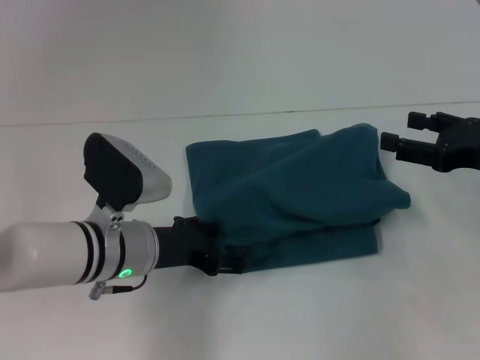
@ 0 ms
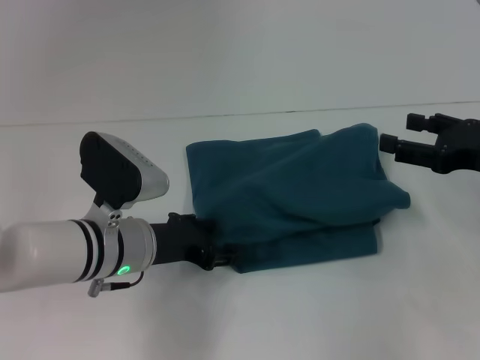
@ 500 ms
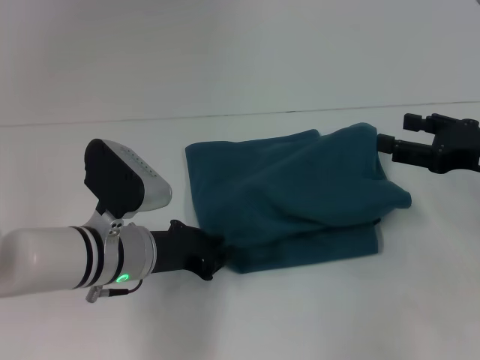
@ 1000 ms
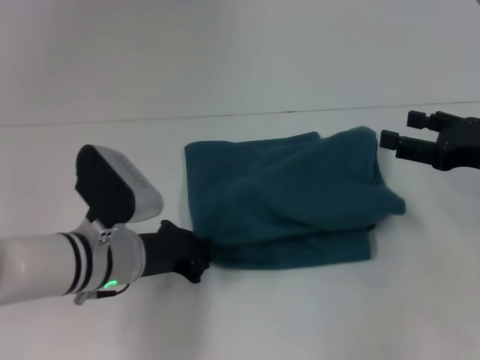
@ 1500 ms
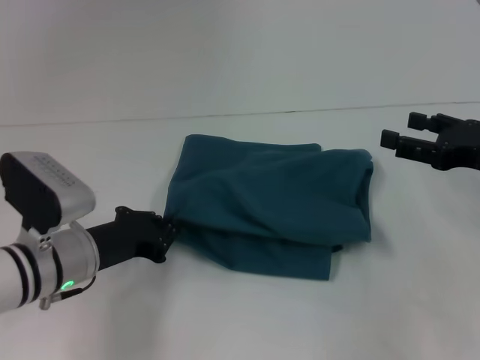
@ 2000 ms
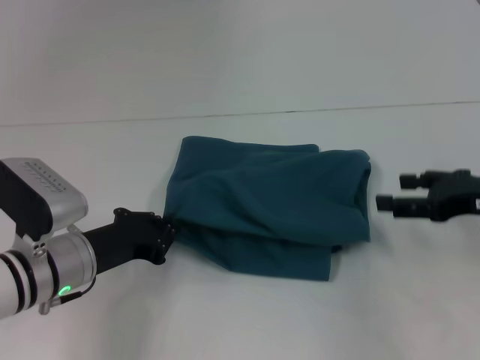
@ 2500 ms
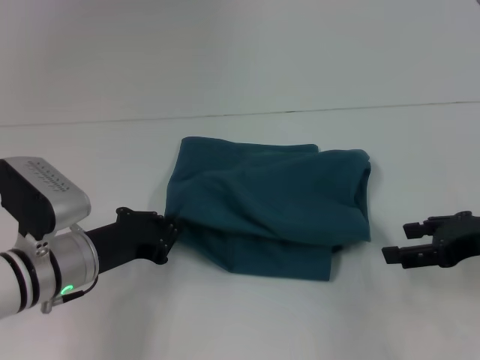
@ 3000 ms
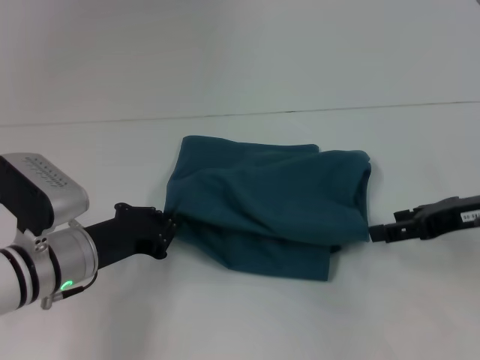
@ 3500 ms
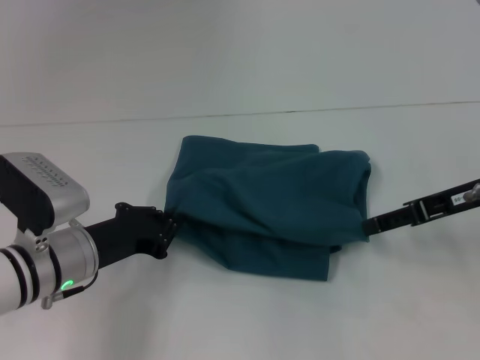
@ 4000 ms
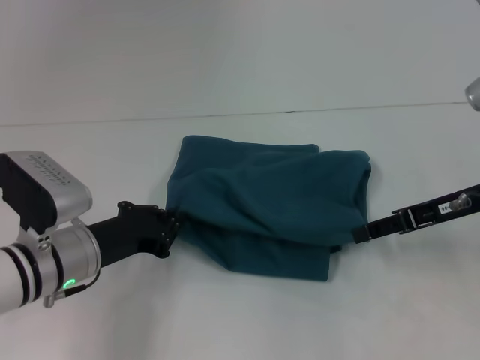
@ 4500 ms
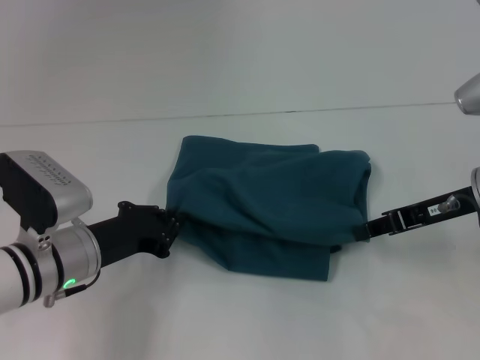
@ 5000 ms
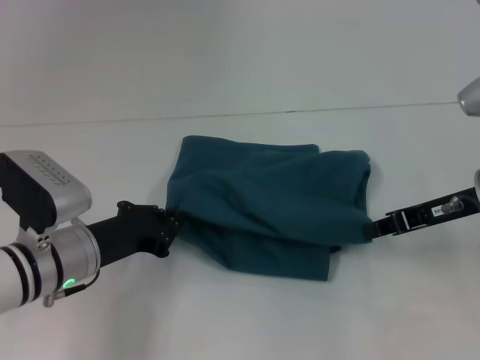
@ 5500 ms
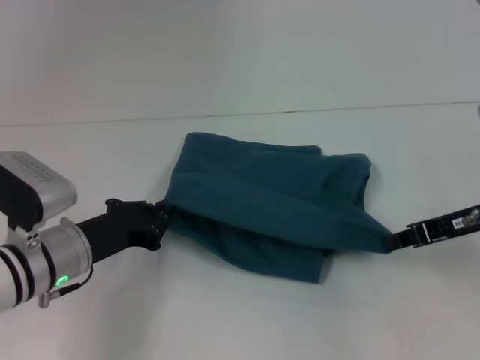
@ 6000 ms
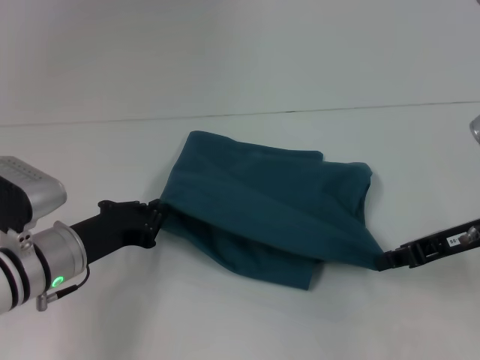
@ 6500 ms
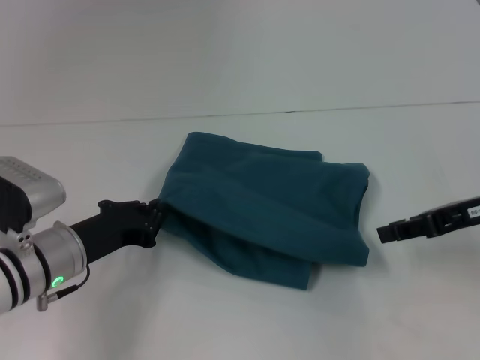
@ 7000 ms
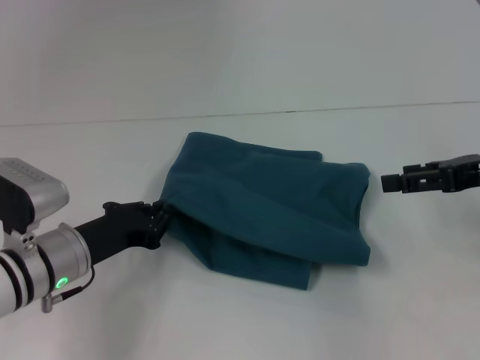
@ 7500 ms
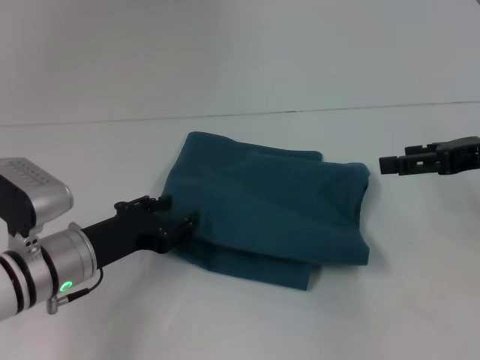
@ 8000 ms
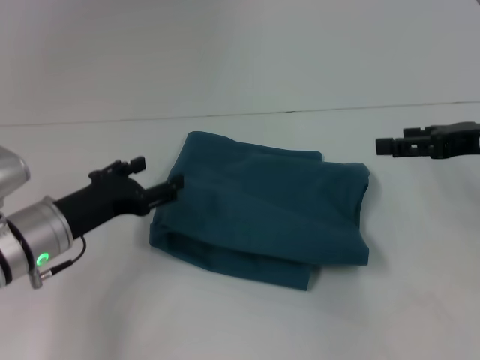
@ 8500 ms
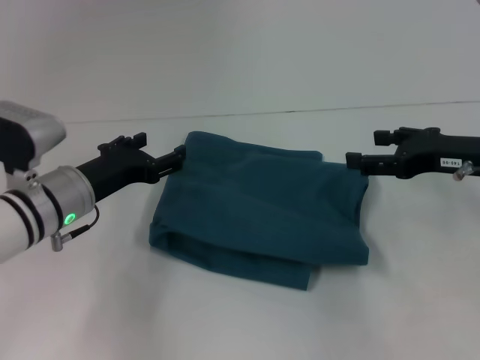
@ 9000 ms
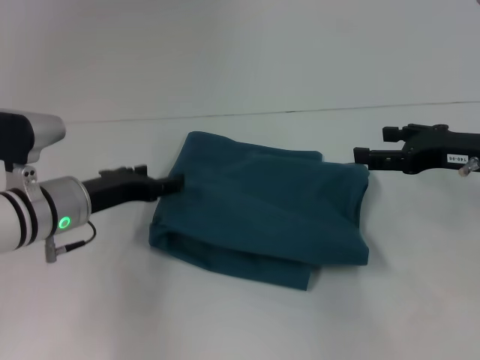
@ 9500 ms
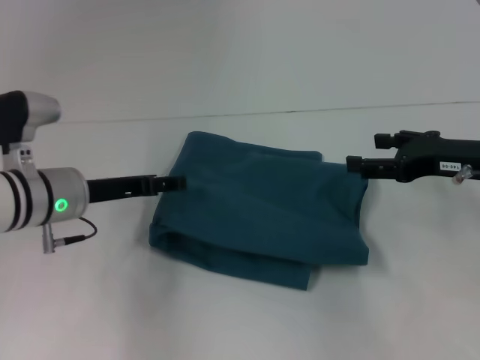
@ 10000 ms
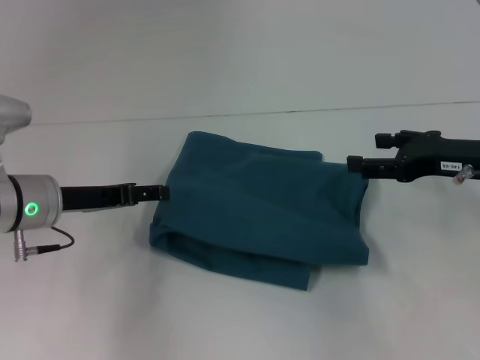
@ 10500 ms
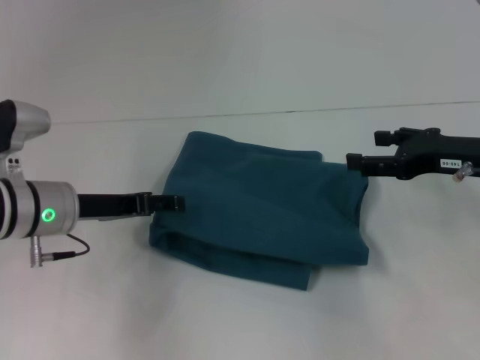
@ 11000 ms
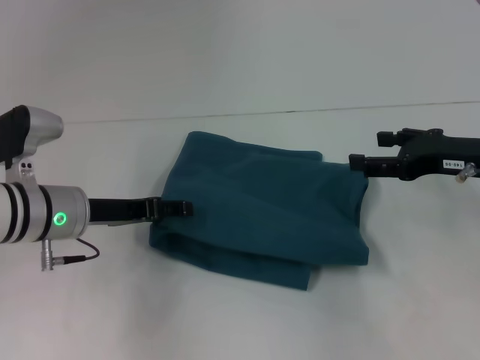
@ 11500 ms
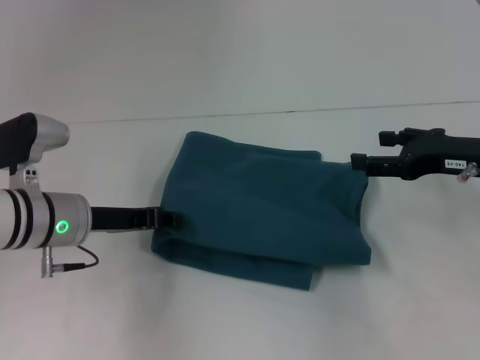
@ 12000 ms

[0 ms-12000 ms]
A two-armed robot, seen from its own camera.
0 ms to 2000 ms: The left gripper travels to the left by about 5 cm, and closes.
4000 ms to 6000 ms: The right gripper closes up.
6000 ms to 8000 ms: The right gripper ends up roughly 5 cm from where it was, and opens its fingers.
8000 ms to 10000 ms: The left gripper travels forward by about 5 cm, and opens, while the right gripper changes place by roughly 5 cm.
10000 ms to 12000 ms: The left gripper closes.

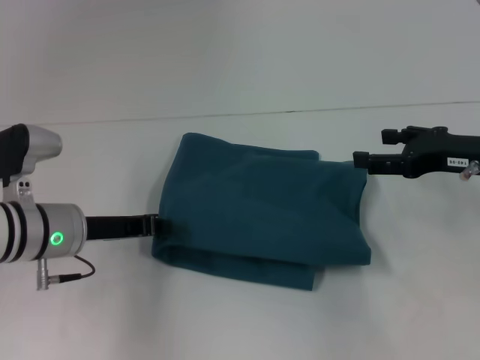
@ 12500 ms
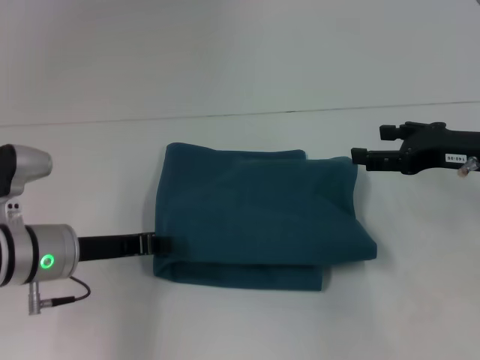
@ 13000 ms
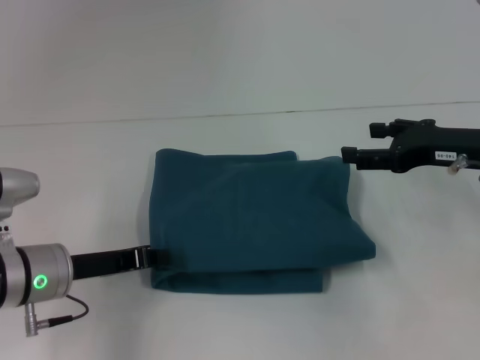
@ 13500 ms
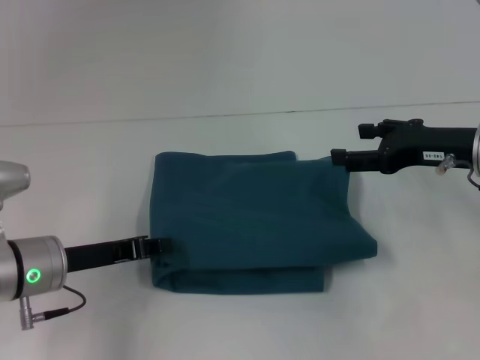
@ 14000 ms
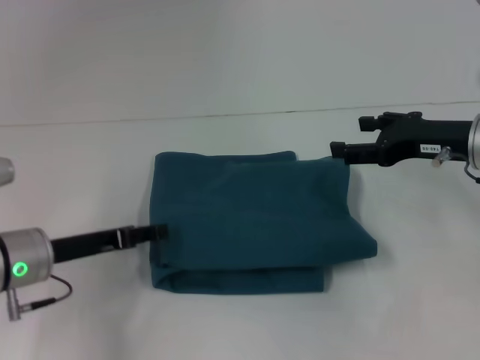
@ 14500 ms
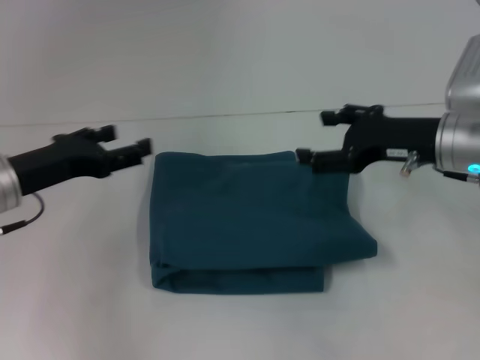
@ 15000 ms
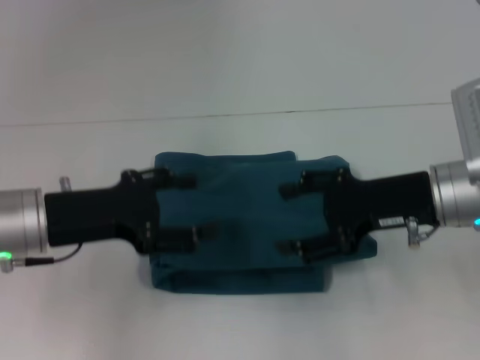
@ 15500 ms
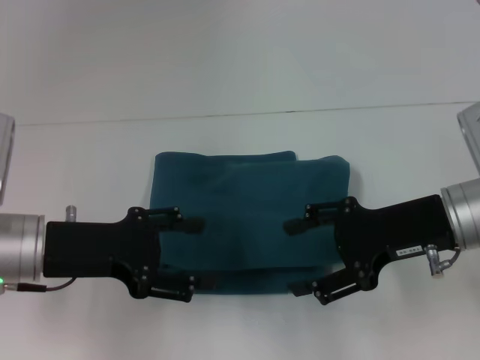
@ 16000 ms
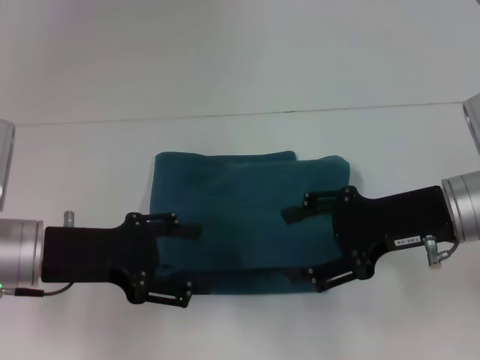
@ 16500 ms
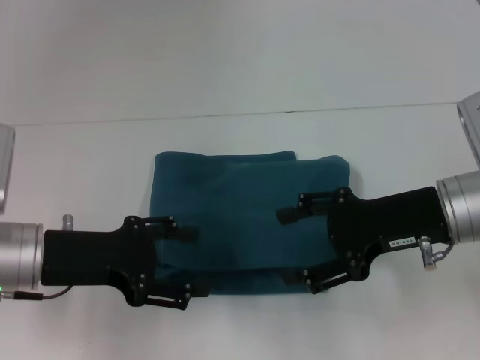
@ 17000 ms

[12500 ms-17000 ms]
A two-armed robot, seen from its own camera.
12500 ms to 14500 ms: The left gripper opens its fingers.
14500 ms to 17000 ms: The right gripper goes roughly 10 cm backward and to the left. The left gripper moves approximately 5 cm, and opens its fingers.

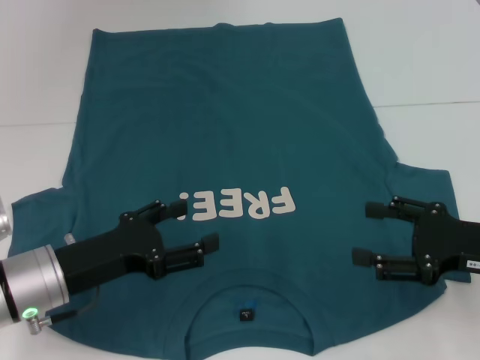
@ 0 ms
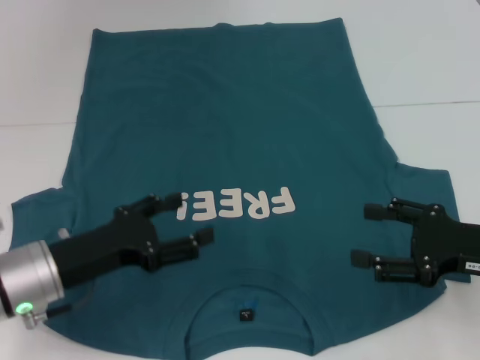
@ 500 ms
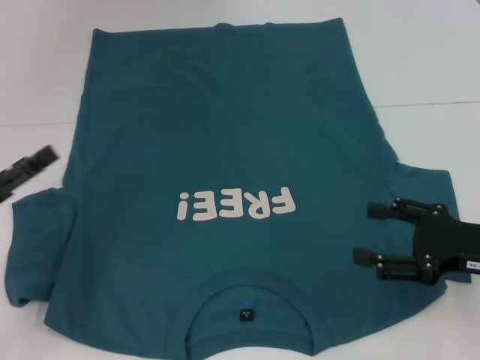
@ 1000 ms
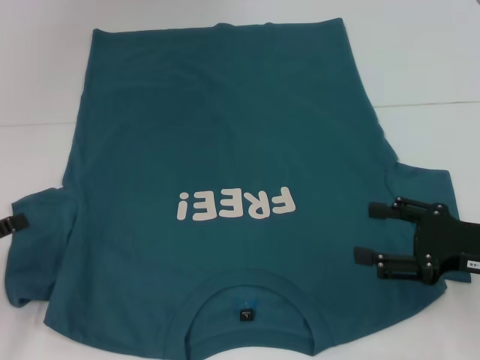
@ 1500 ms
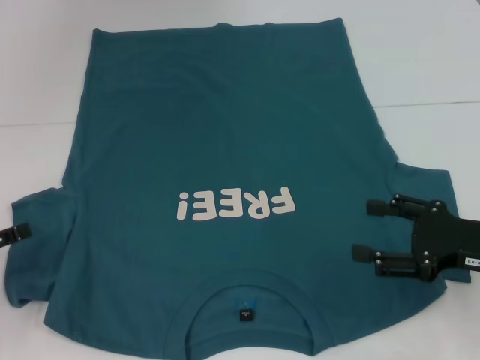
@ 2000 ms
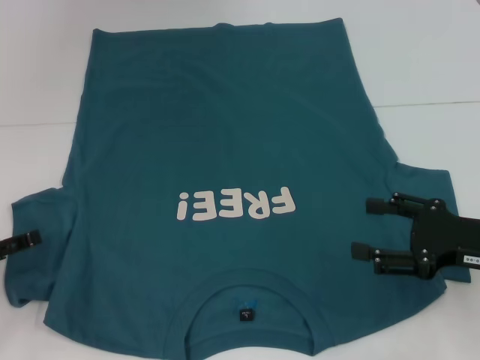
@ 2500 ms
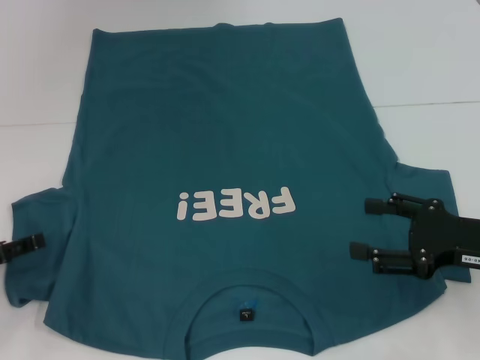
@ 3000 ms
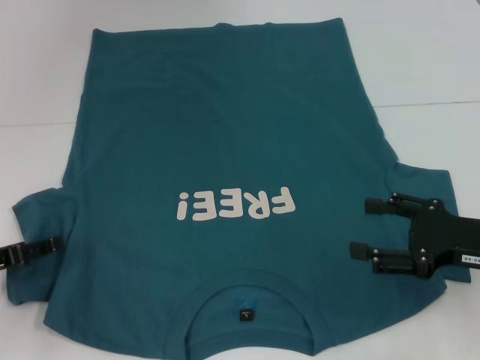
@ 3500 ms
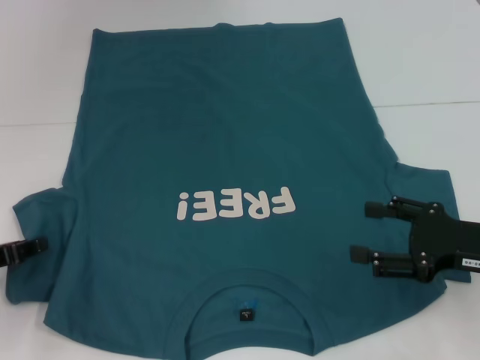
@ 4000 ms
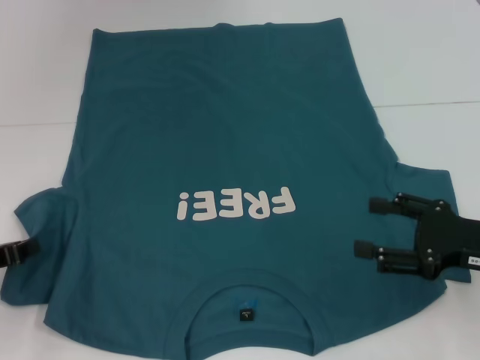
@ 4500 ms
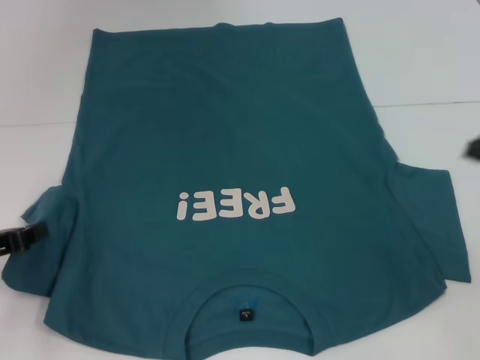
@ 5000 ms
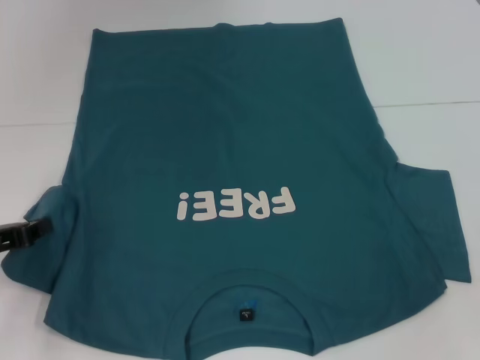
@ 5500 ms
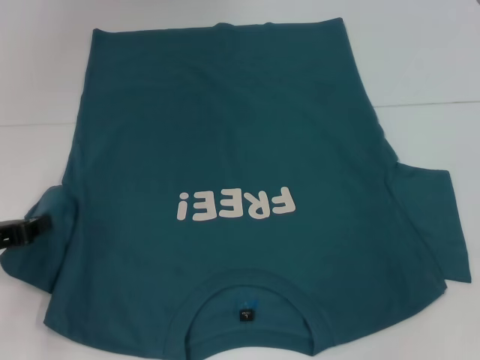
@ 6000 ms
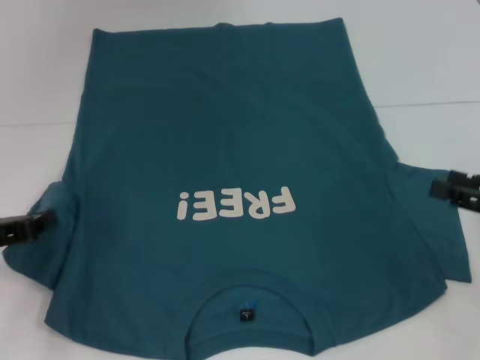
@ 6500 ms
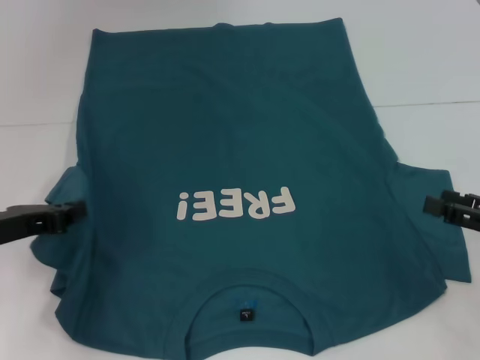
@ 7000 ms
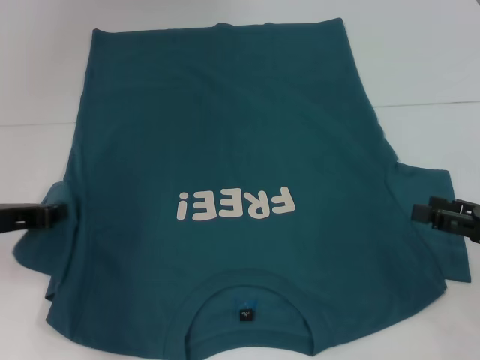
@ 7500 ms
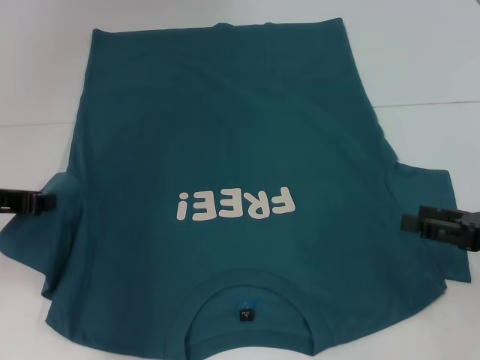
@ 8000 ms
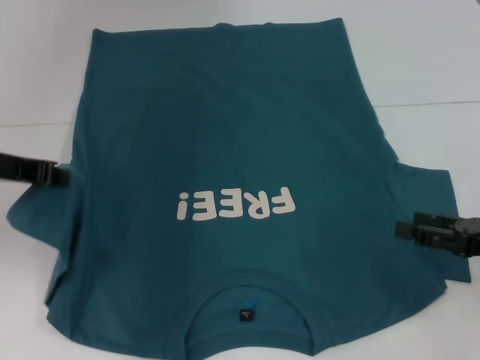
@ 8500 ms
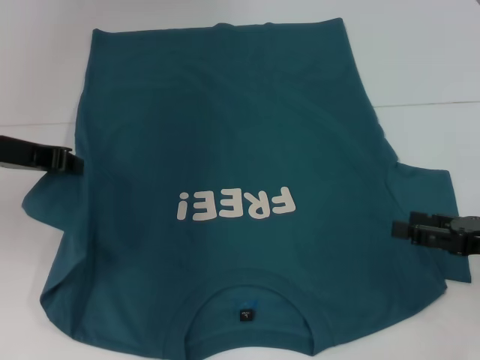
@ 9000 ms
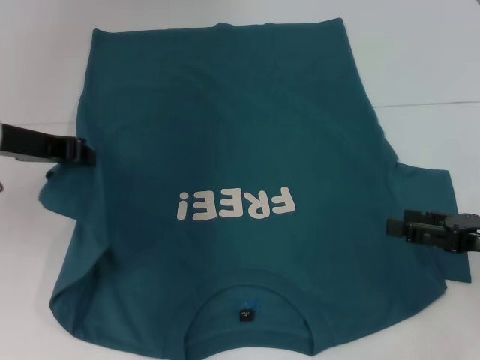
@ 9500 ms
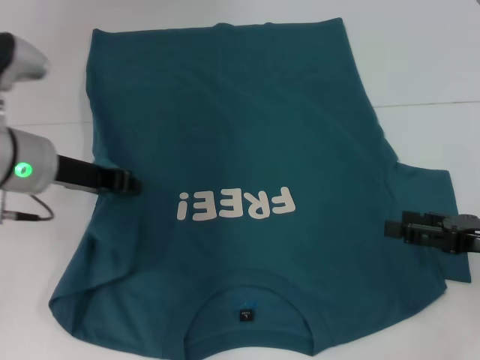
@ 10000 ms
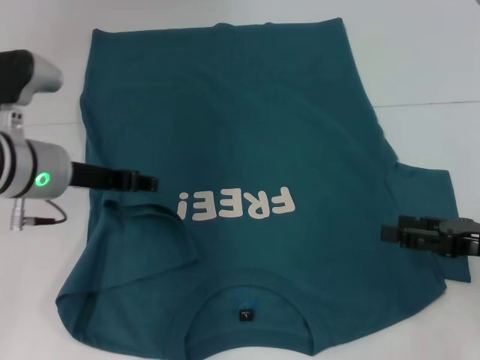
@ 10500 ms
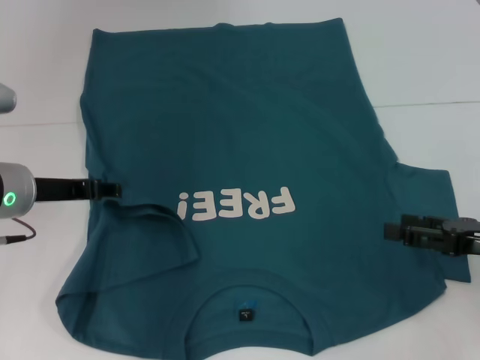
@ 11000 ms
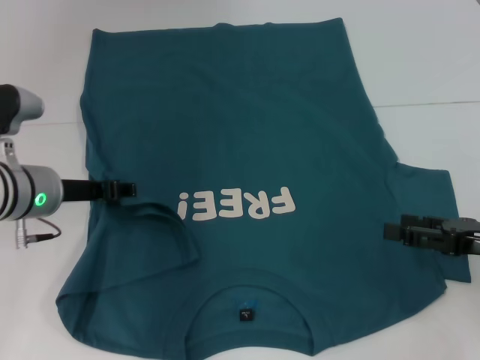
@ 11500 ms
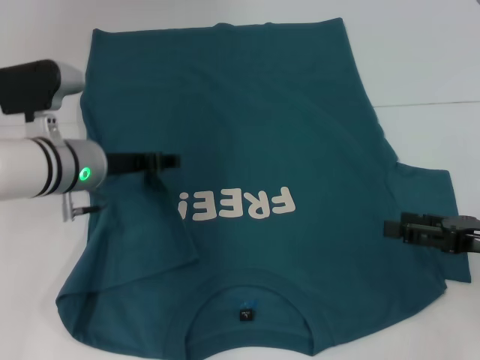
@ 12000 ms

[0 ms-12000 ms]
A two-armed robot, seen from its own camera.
0 ms to 2000 ms: The left gripper goes about 15 cm to the left.
2000 ms to 4000 ms: The left gripper closes its fingers.
4000 ms to 6000 ms: The right gripper is displaced to the right and upward by about 15 cm. Meanwhile the left gripper closes up.
6000 ms to 8000 ms: The right gripper moves downward and to the left, about 10 cm. Meanwhile the left gripper shifts roughly 5 cm upward.
8000 ms to 10000 ms: The left gripper shifts roughly 10 cm to the right.
10000 ms to 12000 ms: The left gripper moves downward, some 5 cm, and opens up.
